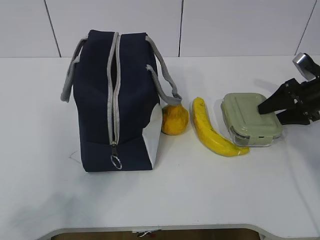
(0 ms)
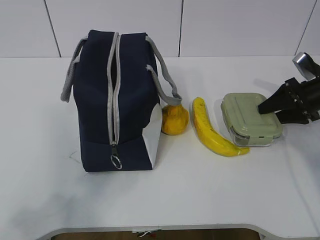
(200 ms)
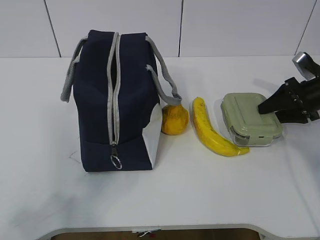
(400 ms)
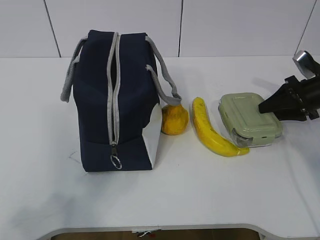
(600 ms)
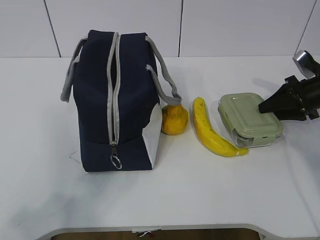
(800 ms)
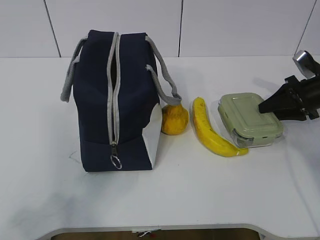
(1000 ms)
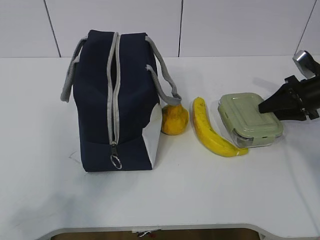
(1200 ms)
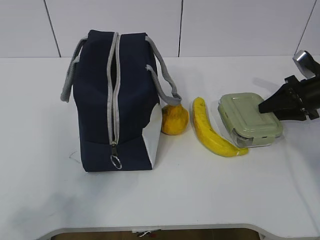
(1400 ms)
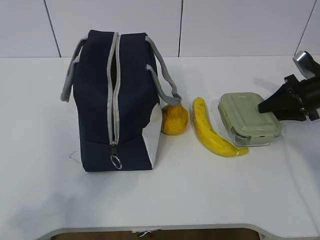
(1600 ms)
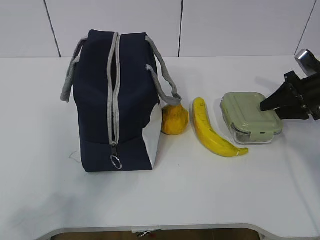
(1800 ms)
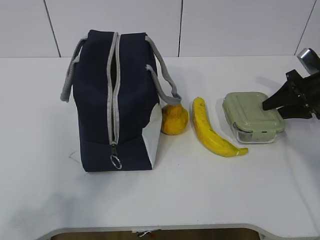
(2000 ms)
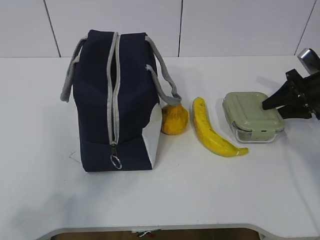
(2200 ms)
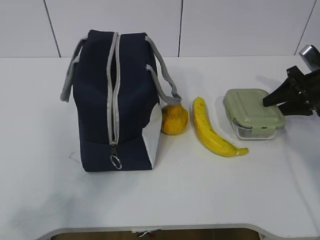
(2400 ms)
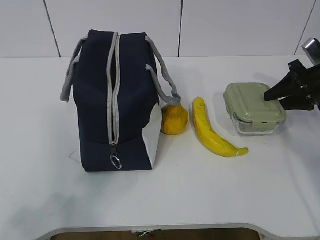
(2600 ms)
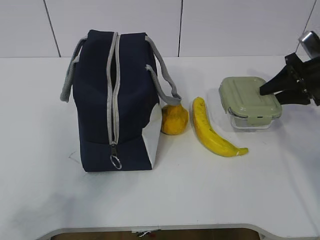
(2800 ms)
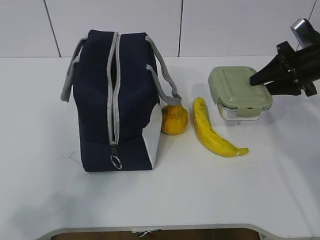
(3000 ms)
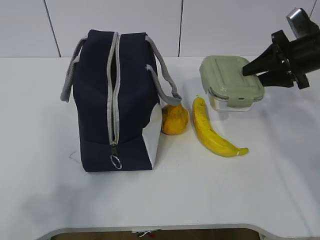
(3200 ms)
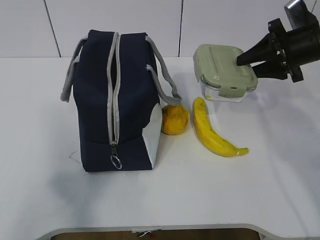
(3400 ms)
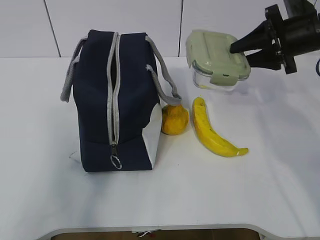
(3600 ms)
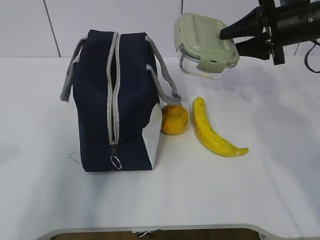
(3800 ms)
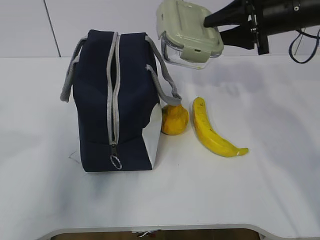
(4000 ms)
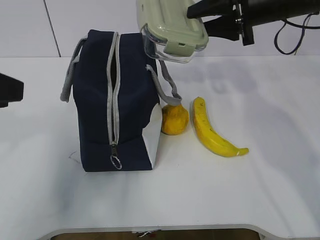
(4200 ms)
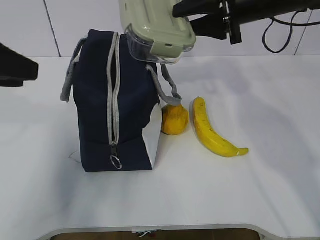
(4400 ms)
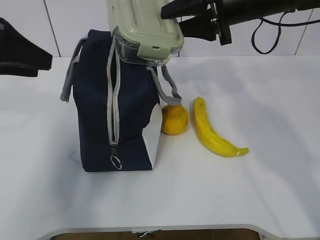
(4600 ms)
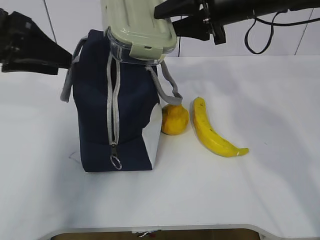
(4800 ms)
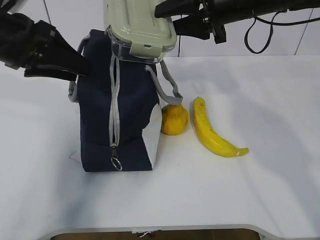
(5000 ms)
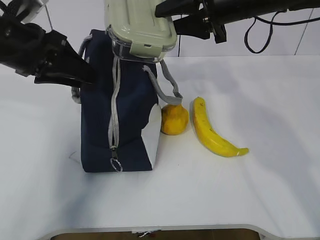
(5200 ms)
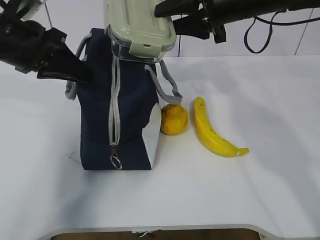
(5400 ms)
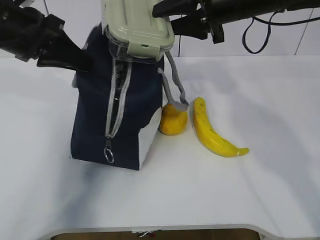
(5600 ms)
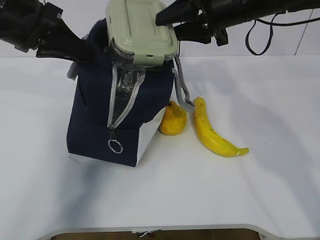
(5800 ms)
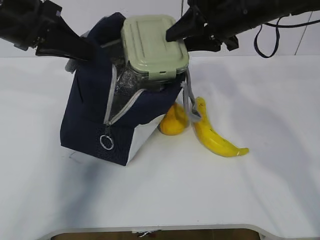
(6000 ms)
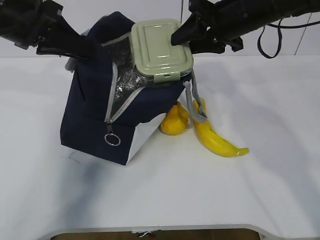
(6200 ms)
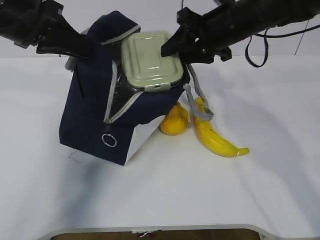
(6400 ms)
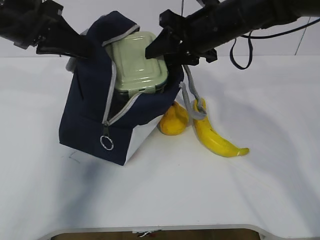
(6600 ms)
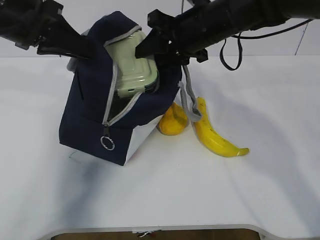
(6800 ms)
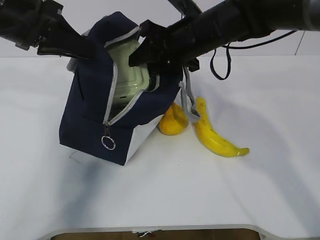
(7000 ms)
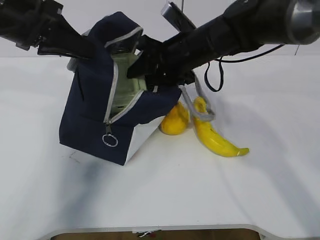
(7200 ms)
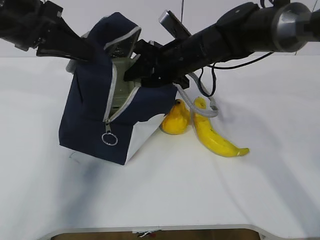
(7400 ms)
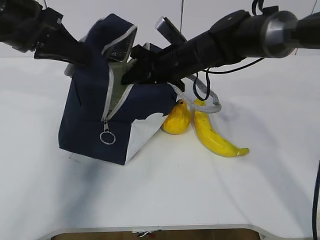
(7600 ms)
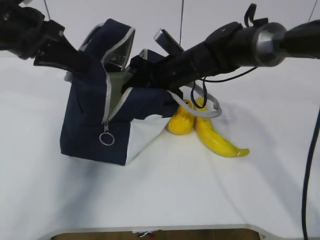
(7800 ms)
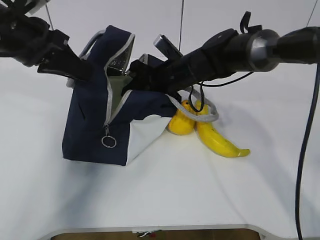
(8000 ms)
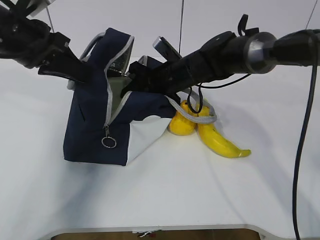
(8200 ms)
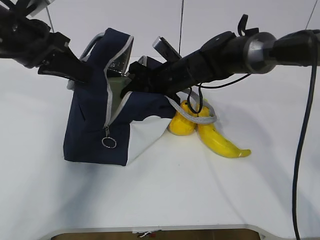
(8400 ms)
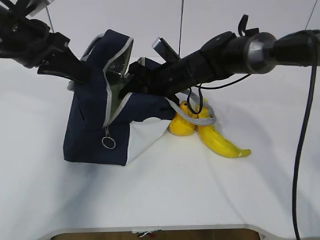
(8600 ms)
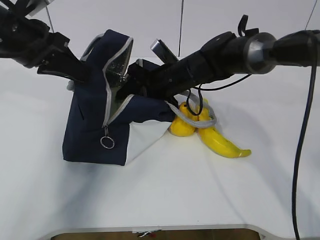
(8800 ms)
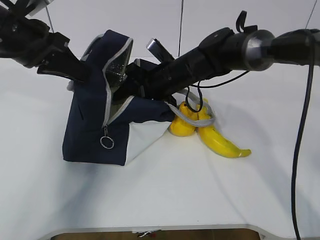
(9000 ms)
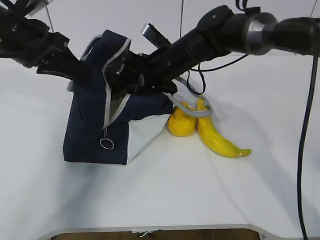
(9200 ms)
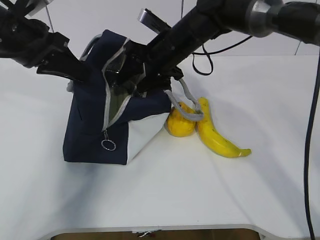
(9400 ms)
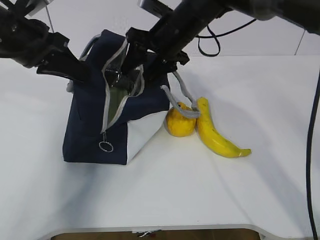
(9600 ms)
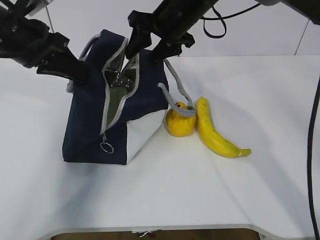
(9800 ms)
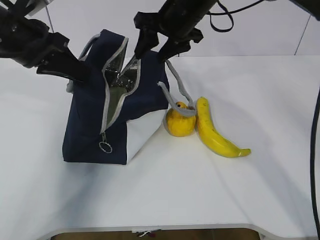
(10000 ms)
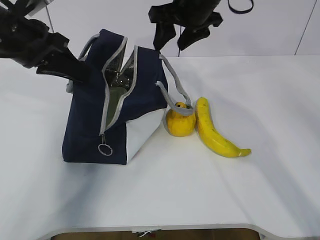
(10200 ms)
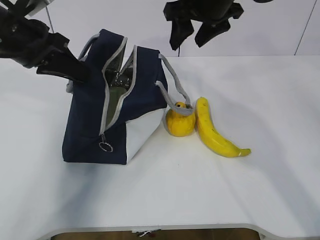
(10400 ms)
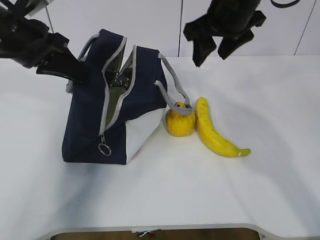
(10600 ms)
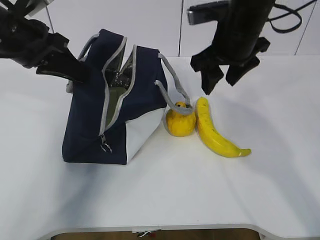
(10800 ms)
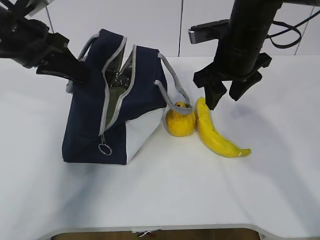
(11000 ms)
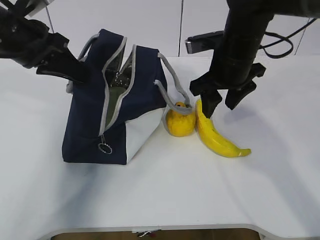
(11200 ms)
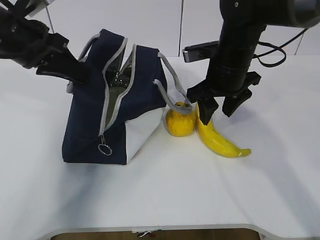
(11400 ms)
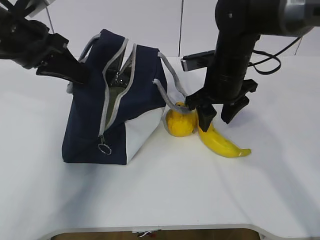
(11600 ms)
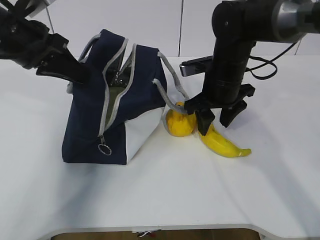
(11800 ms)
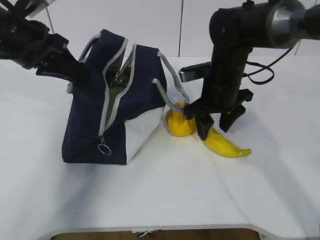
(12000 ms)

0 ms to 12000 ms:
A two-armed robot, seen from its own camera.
Step, 800 ms to 10400 ms: Place the box into the package with the right gripper.
0 ms to 1600 ms: The right gripper closes.
1600 ms to 3000 ms: The right gripper travels upward by some 5 cm.
3000 ms to 4400 ms: The right gripper shifts roughly 20 cm to the left and upward. Meanwhile the left gripper is displaced forward by approximately 25 cm.
4400 ms to 6000 ms: The left gripper is displaced forward and to the right by approximately 10 cm, and closes.
6000 ms to 7600 ms: The right gripper is displaced downward and to the left by about 15 cm.
9000 ms to 10400 ms: The right gripper is displaced upward by roughly 15 cm.
10400 ms to 12000 ms: The right gripper travels downward by some 15 cm.

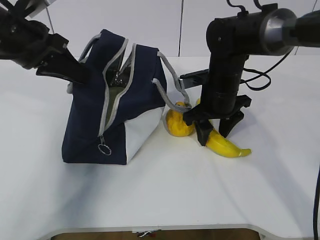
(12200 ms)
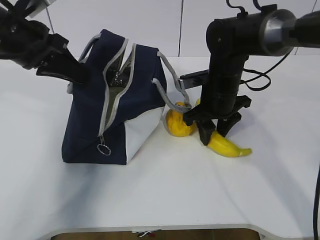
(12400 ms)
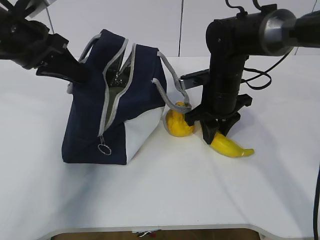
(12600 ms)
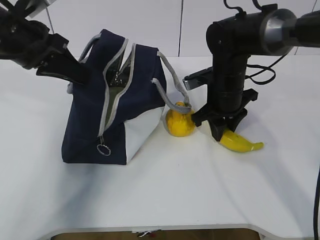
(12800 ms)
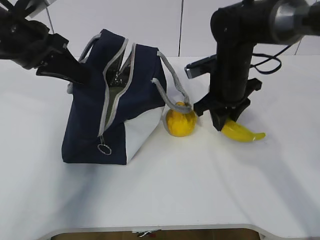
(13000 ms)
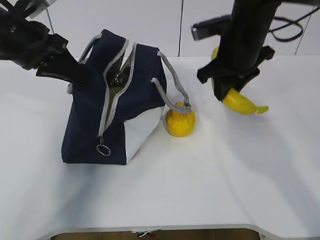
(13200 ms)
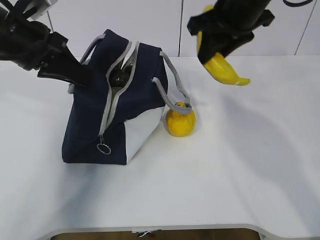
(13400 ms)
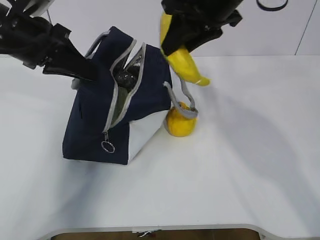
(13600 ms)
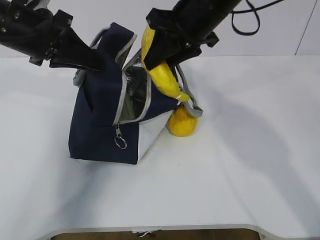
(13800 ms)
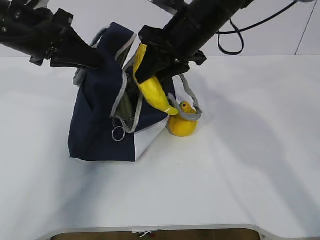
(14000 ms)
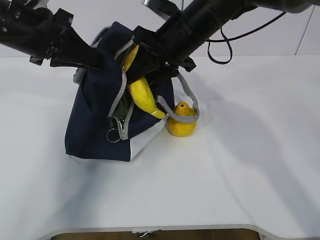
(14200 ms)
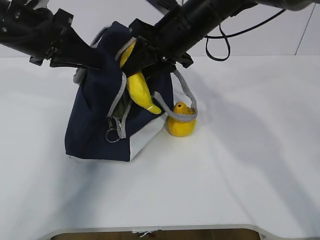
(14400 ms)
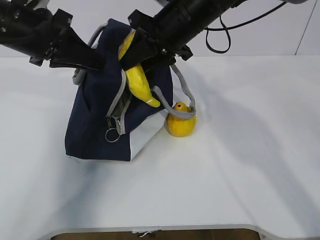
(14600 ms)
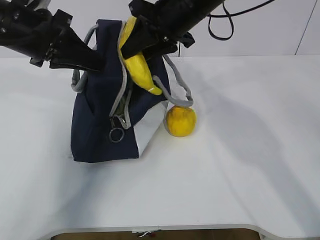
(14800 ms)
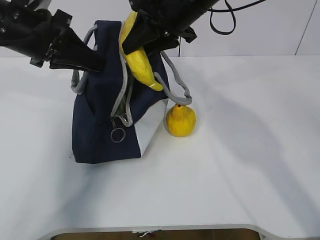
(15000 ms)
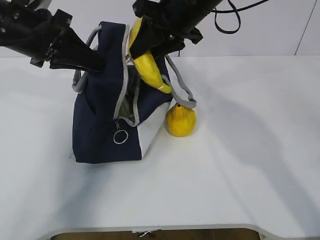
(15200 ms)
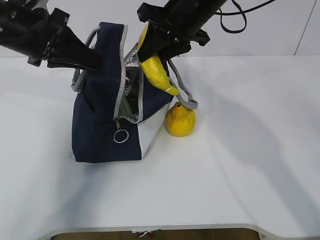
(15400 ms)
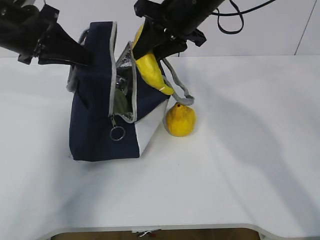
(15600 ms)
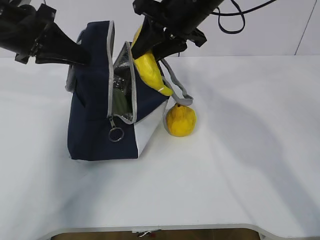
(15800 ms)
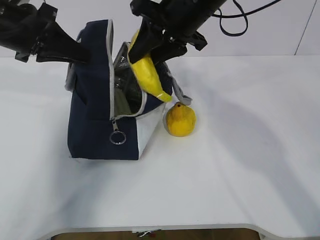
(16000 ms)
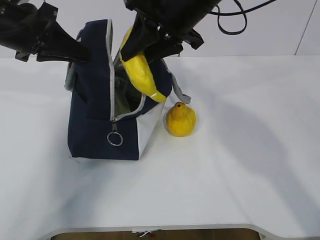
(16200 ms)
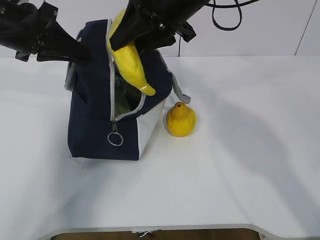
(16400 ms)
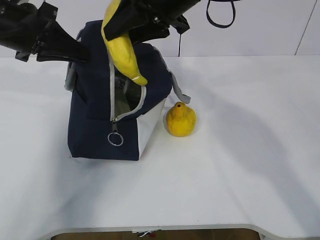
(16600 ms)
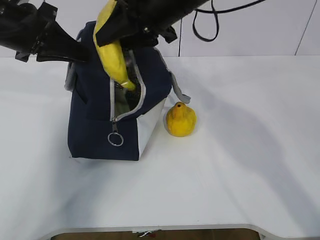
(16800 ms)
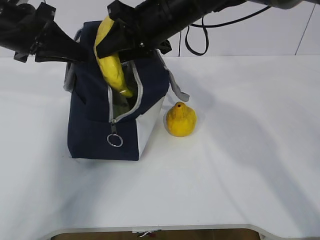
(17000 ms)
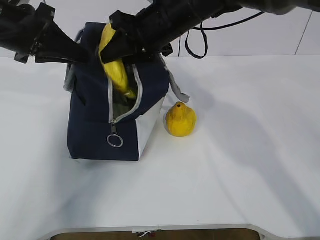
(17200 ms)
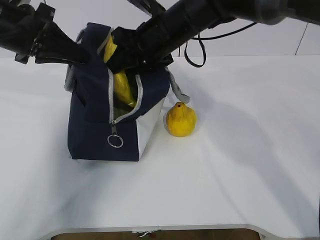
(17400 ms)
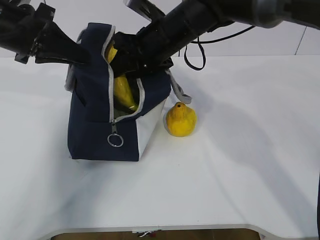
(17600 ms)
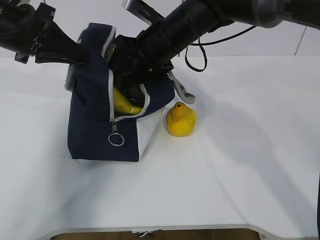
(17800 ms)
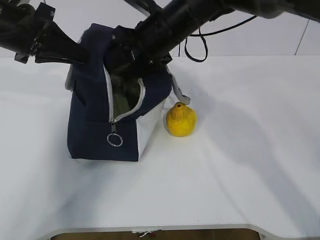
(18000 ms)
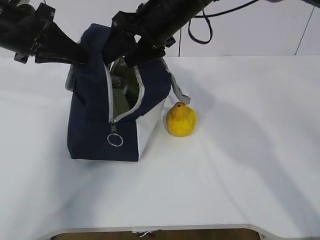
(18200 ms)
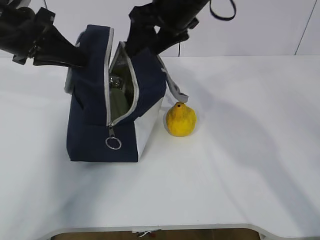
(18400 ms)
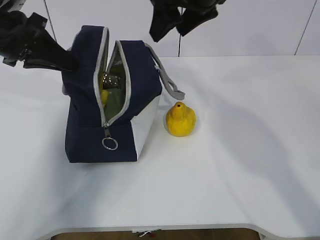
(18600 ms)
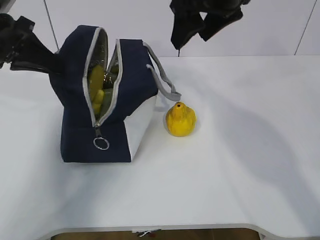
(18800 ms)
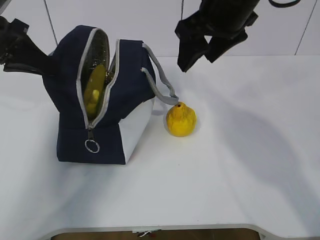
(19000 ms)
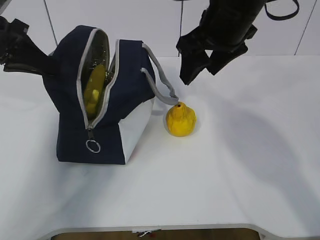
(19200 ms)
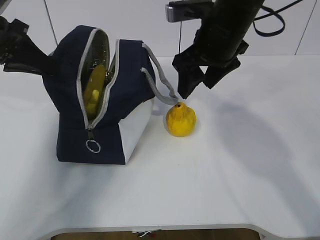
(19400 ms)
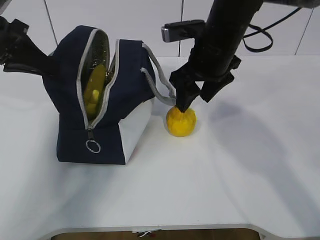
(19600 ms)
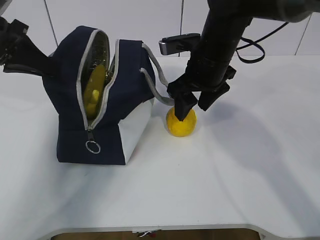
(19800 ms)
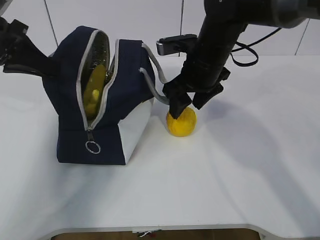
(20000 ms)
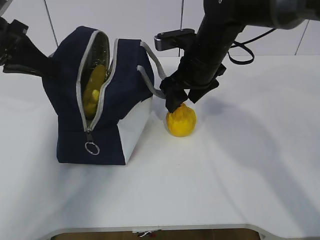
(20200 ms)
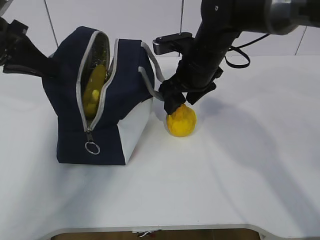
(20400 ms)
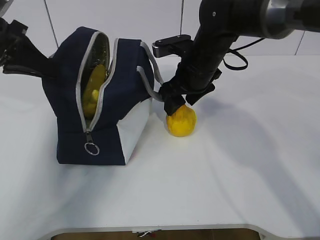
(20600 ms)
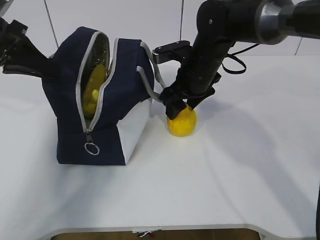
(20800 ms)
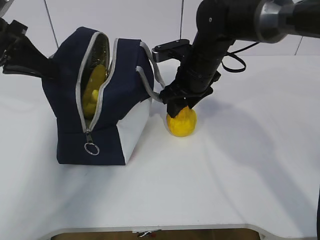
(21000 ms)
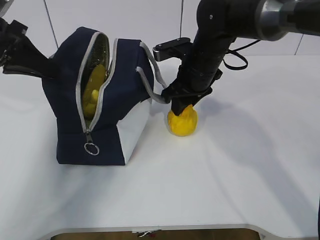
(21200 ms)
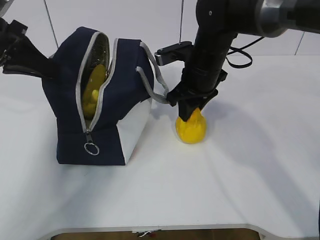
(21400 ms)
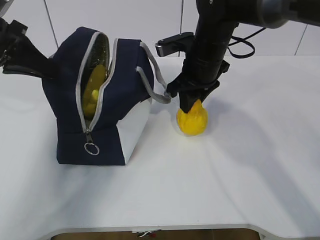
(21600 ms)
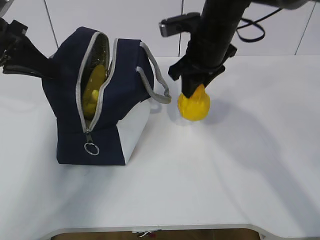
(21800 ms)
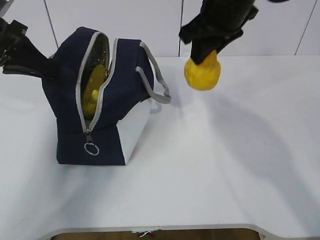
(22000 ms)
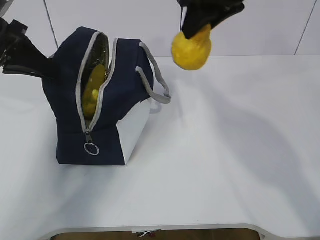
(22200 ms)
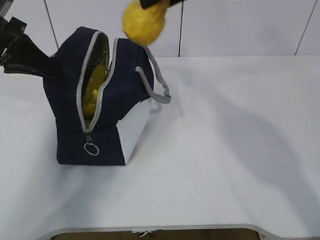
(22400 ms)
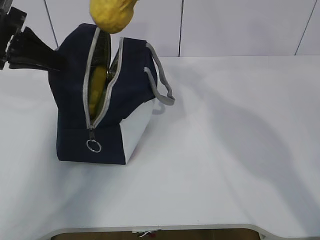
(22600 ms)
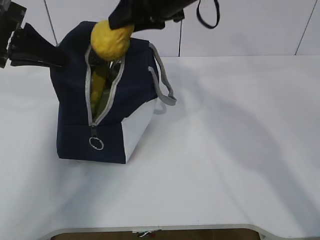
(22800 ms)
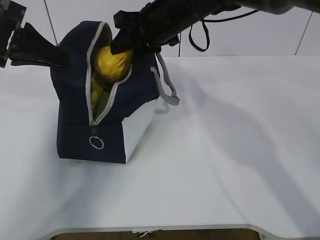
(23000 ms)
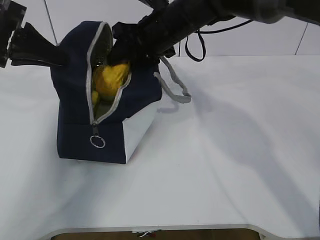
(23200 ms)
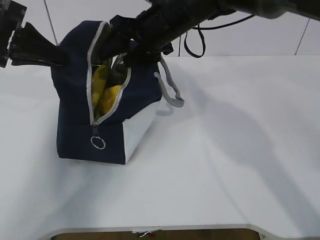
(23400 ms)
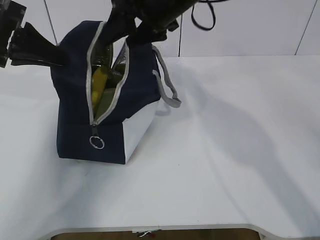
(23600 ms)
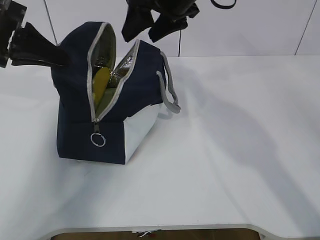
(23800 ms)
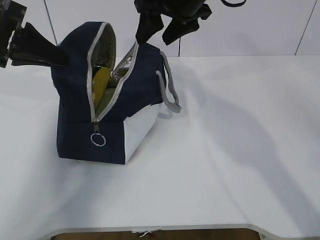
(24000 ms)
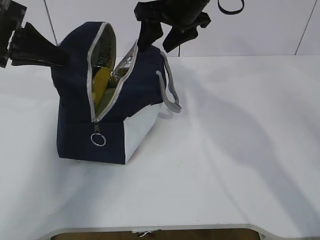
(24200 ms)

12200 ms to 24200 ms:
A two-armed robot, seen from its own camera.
Step, 12600 ms to 18400 ms: Place the banana into the package with the right gripper.
Step, 18600 ms to 21200 ms: Grasp the pear with the right gripper.
Step, 21400 ms to 23800 ms: Place the pear into the package with the right gripper.
12200 ms to 13800 ms: The right gripper is displaced upward by roughly 15 cm, and closes its fingers.
13800 ms to 15200 ms: The grippers stay close to where they were, moving slightly.
15200 ms to 16600 ms: The right gripper changes place by some 5 cm.
16600 ms to 18200 ms: The right gripper opens.
18200 ms to 19800 ms: The right gripper travels downward and to the right by roughly 10 cm.
19800 ms to 21200 ms: The right gripper closes up.
21200 ms to 22600 ms: The right gripper shifts approximately 20 cm upward.
22600 ms to 24200 ms: The right gripper is displaced downward by some 5 cm, and opens.
